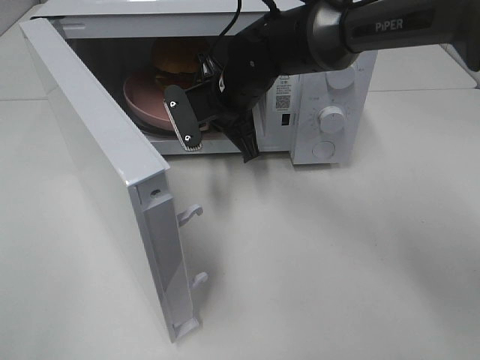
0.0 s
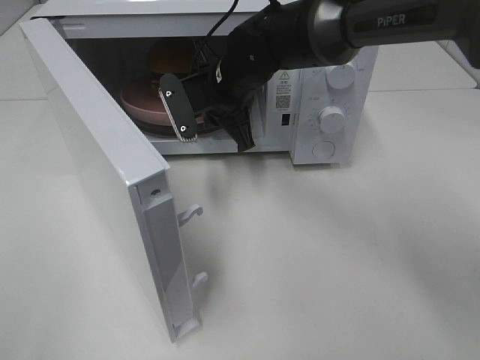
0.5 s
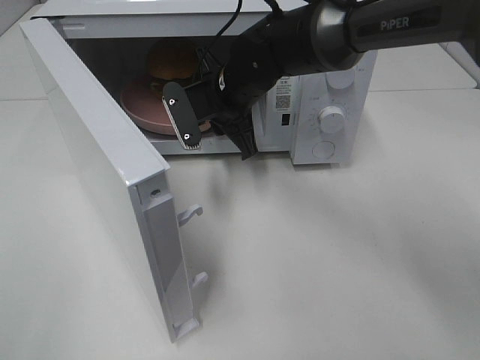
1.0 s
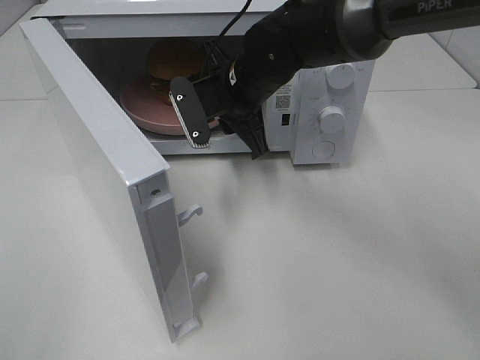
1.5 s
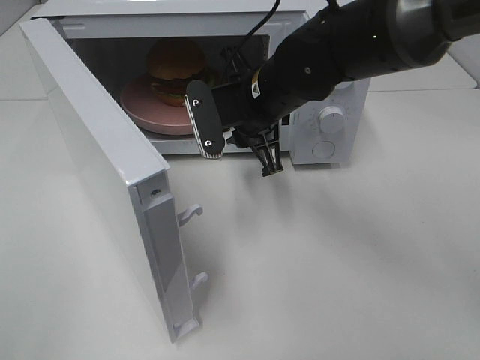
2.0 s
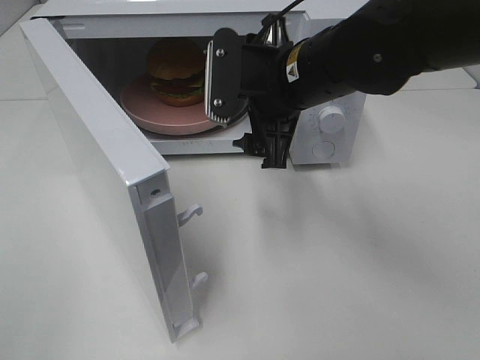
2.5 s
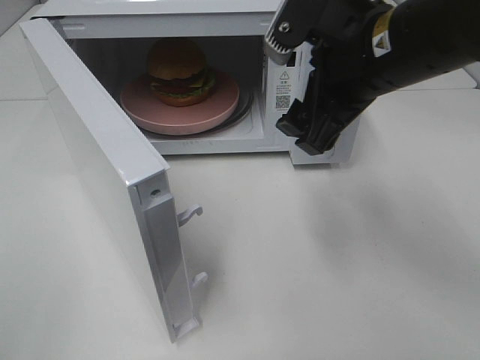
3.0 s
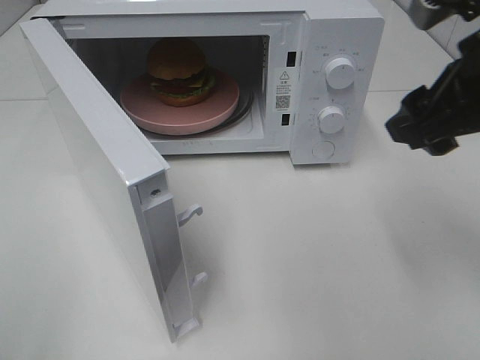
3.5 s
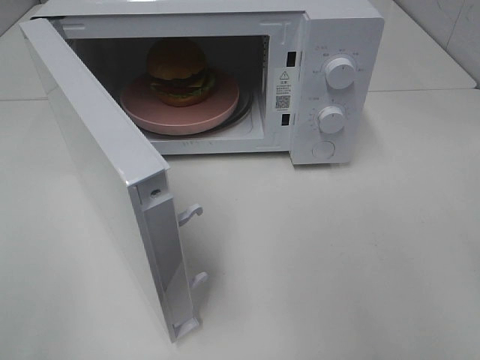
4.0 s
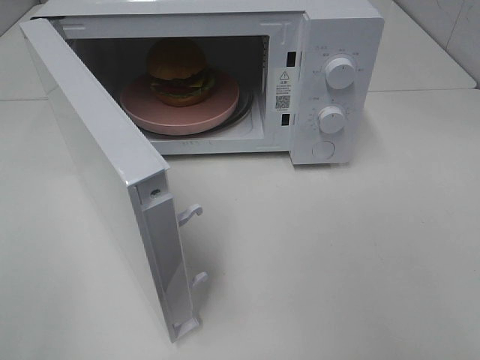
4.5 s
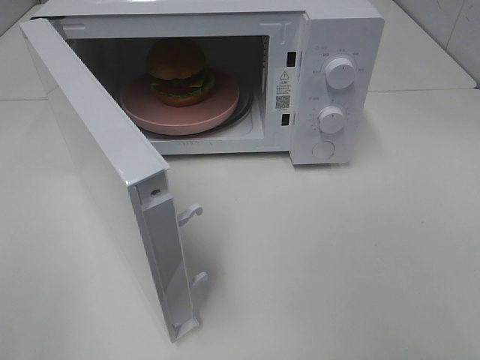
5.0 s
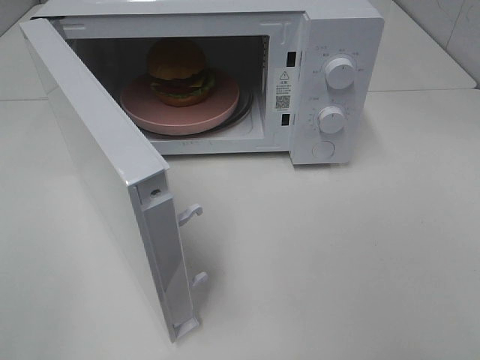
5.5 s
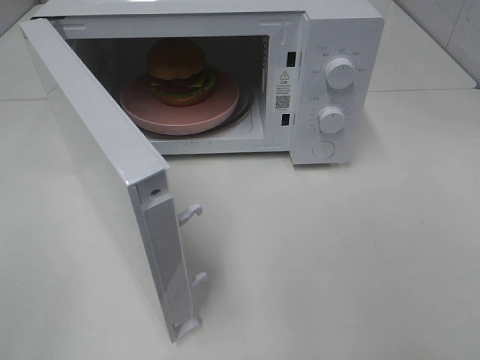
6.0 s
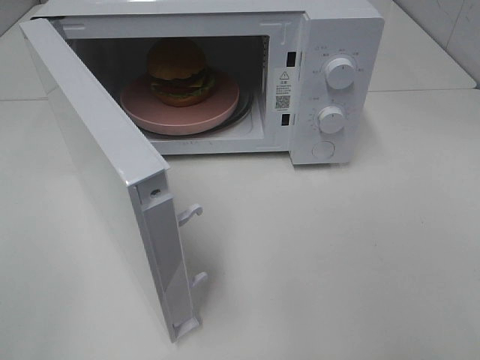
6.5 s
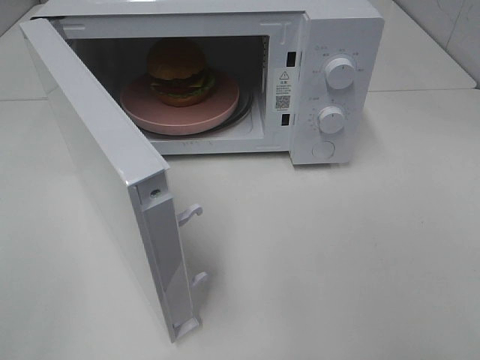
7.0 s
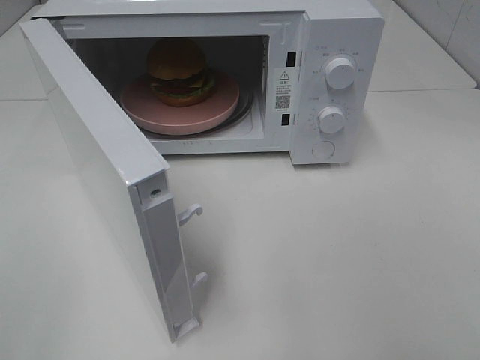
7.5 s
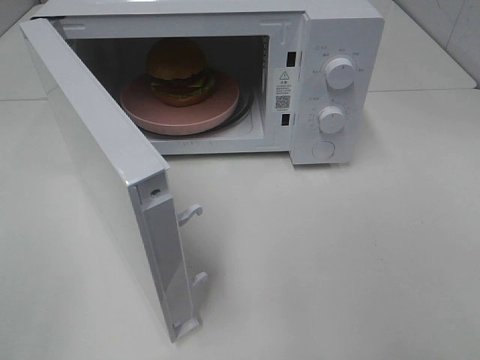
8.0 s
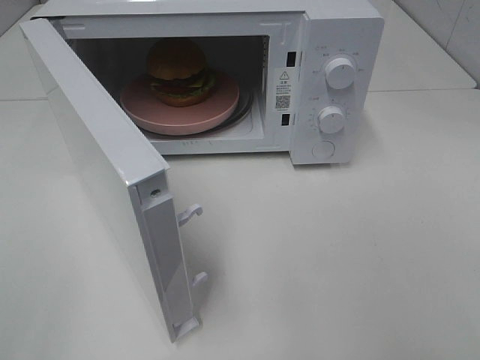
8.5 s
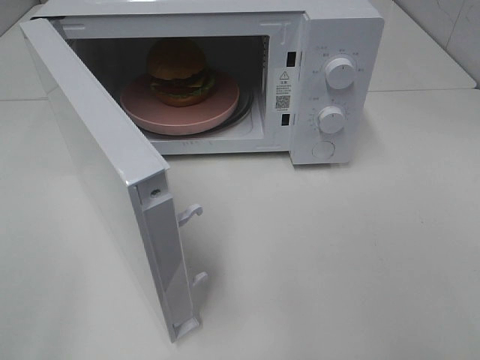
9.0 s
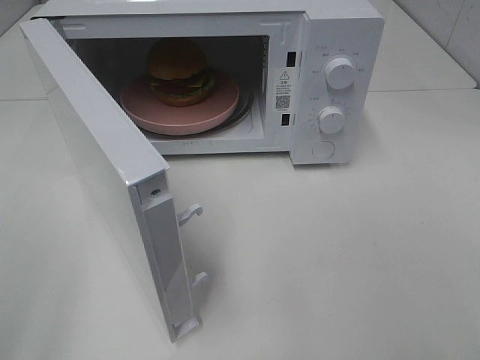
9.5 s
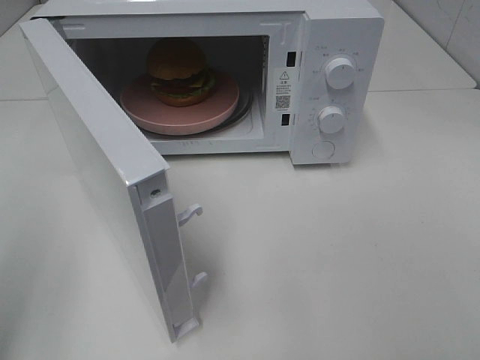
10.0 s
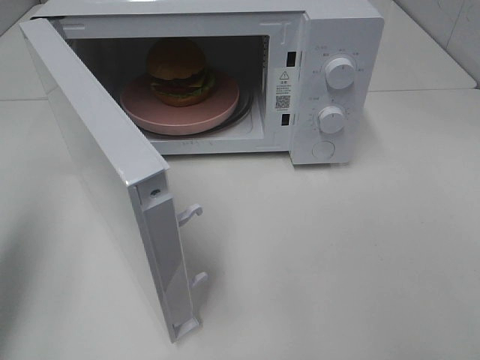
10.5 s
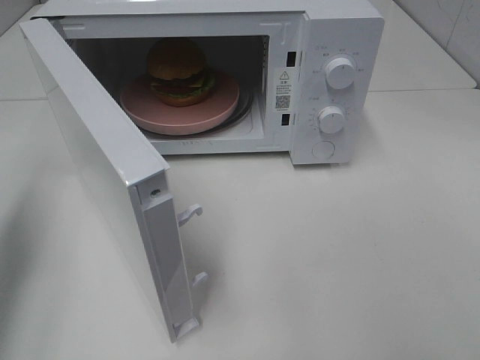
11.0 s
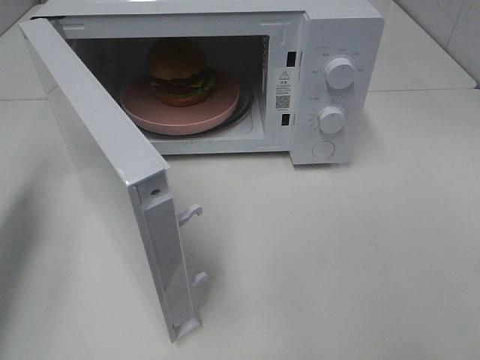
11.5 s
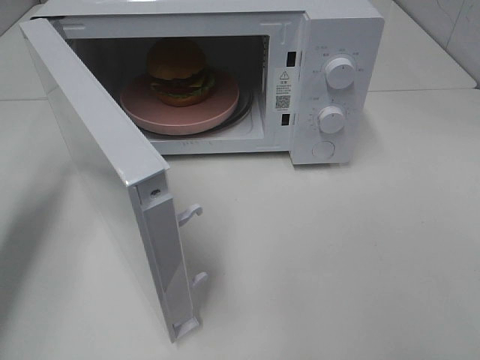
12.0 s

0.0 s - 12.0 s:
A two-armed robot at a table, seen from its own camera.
Task of the whole recording: Heat the burger.
0.0 s - 2.0 s: The right gripper travels backward by roughly 5 cm, and opens.
2.0 s - 4.0 s: The right gripper moves to the right, backward and upward, approximately 35 cm, and opens.
6.0 s - 8.0 s: Neither gripper changes place.
8.0 s - 10.0 s: The left gripper heads forward, covering approximately 10 cm.
10.0 s - 12.0 s: The left gripper moves forward and downward, about 20 cm, and closes its fingers.

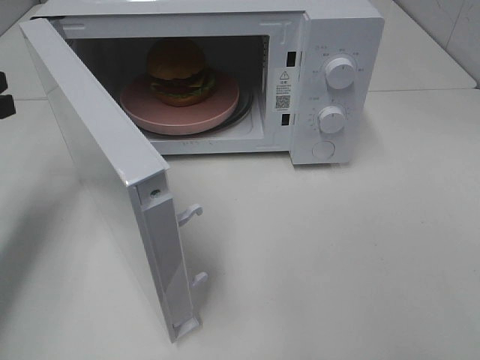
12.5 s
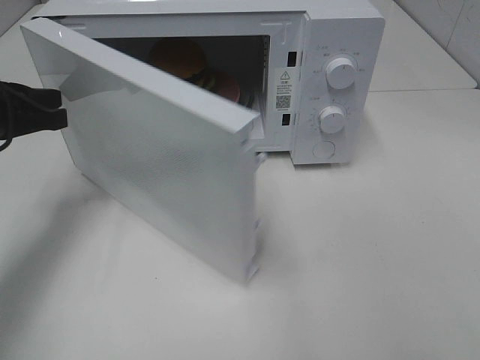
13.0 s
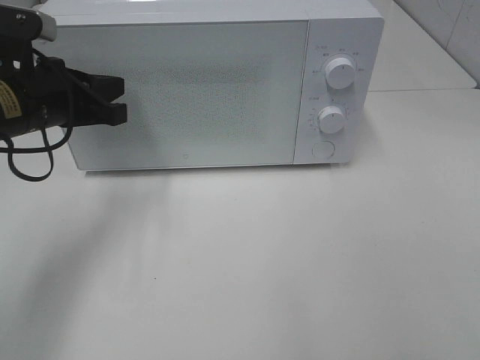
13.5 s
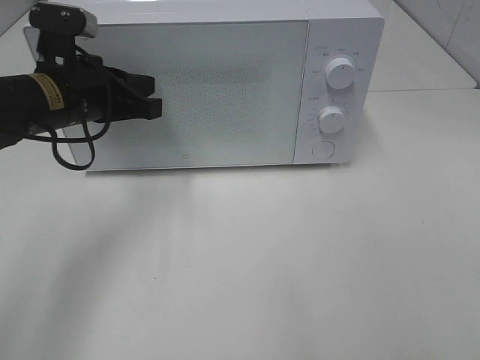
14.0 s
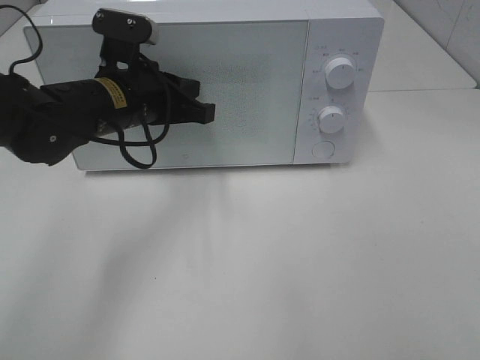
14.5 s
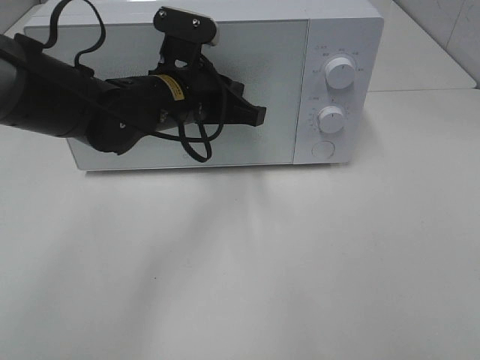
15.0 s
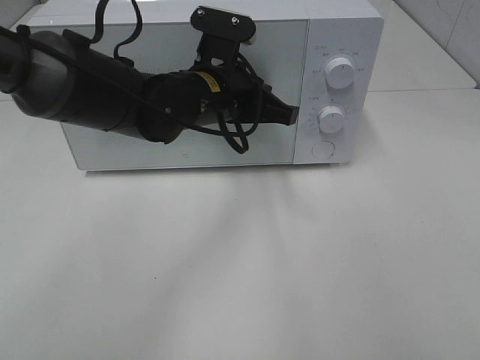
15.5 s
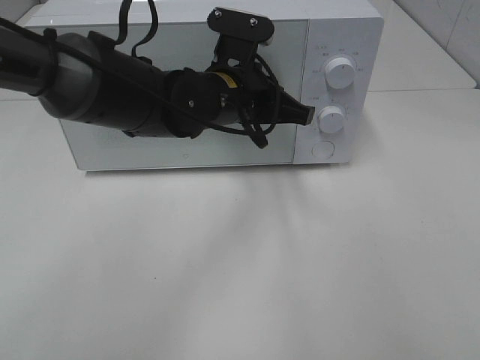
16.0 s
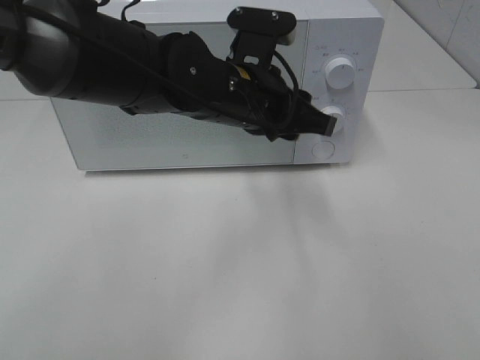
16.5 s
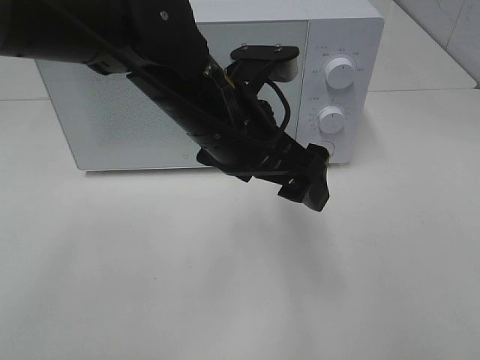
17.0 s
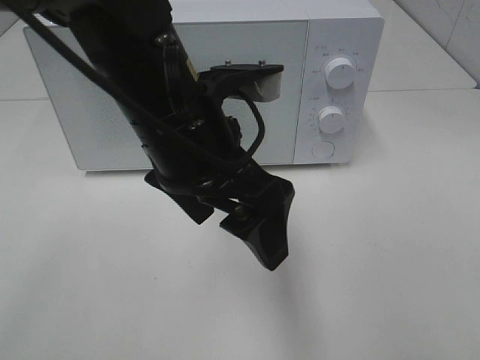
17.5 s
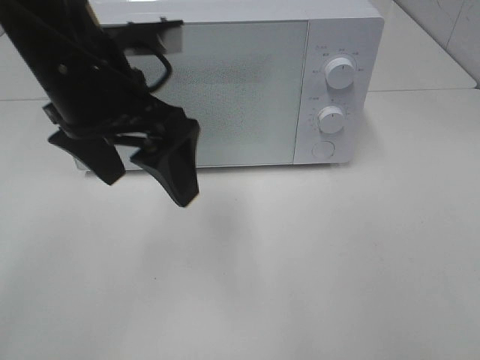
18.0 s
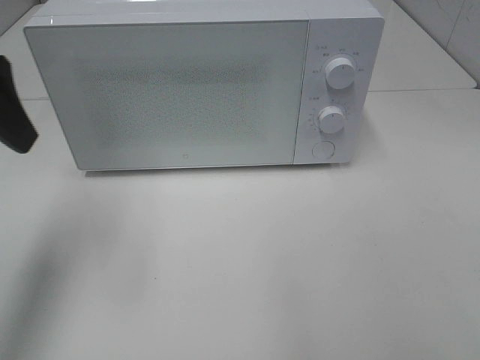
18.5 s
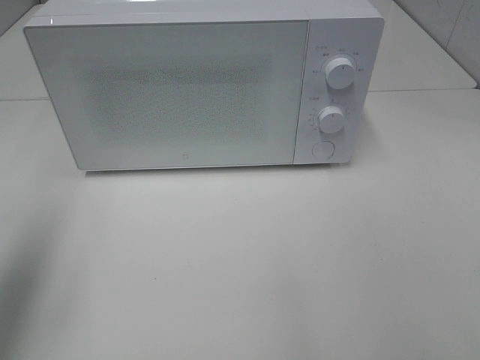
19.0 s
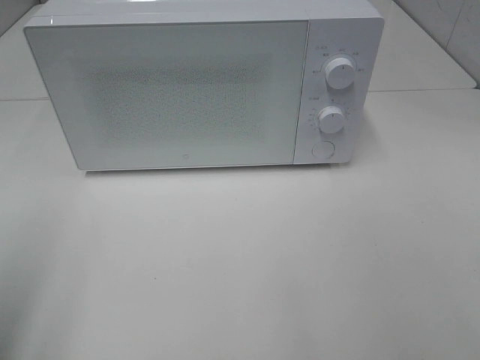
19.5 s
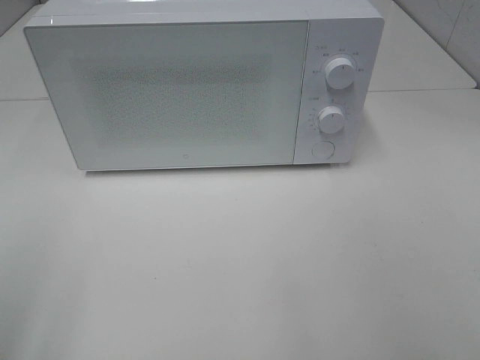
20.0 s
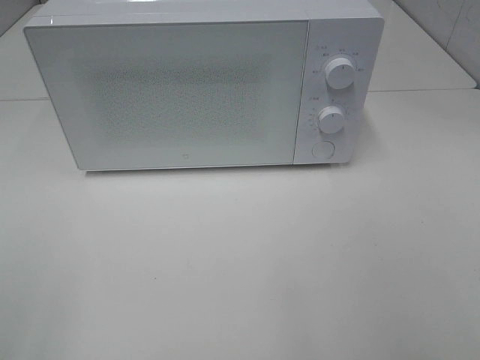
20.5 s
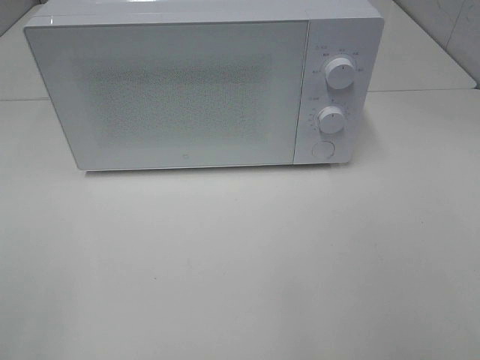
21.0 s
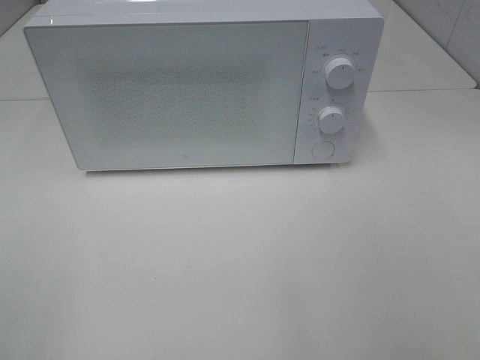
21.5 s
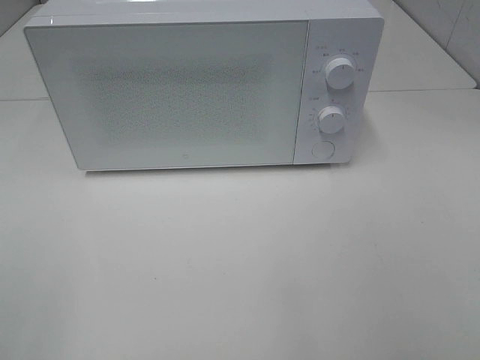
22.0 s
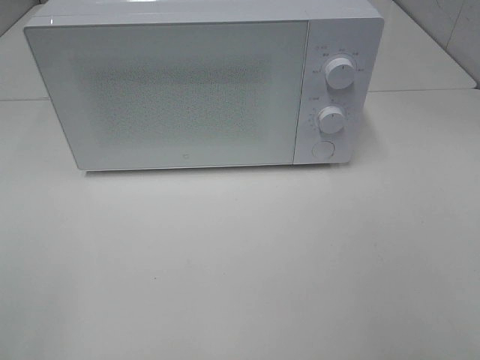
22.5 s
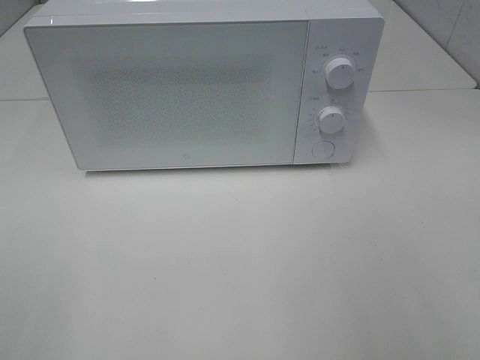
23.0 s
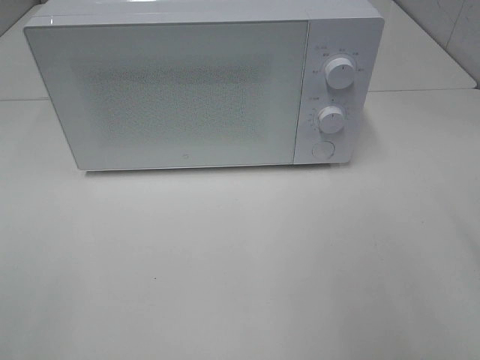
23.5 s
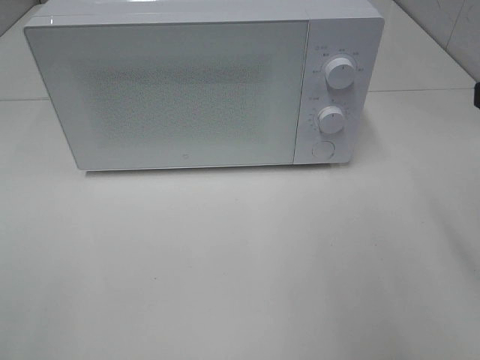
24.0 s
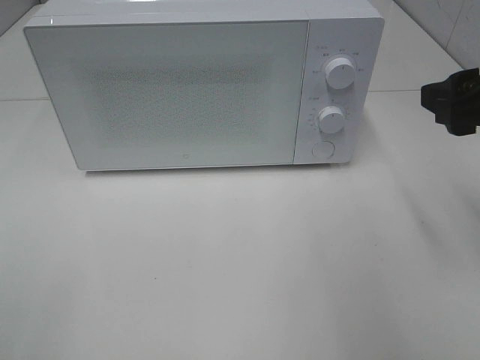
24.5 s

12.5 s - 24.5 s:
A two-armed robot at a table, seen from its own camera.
Task of the whole recording: Heat the burger.
Step, 12.5 s - 14.5 s: Left hand: close the microwave door.
12.5 s - 14.5 s: The left gripper shifts about 20 cm to the right.
14.5 s - 16.5 s: The left gripper moves to the right, some 10 cm, and opens up.
16.5 s - 18.5 s: The left gripper travels to the left and upward by roughly 30 cm, and opens its fingers.
18.5 s - 20.5 s: The left gripper moves backward, about 25 cm.
22.5 s - 24.5 s: The right gripper heads forward, covering about 20 cm.

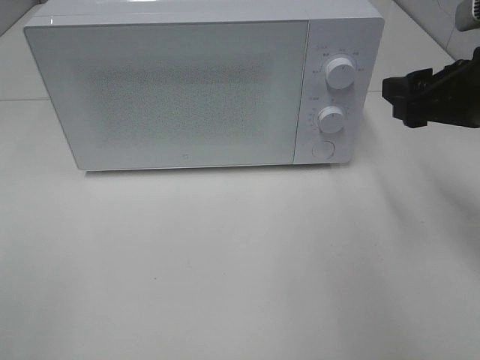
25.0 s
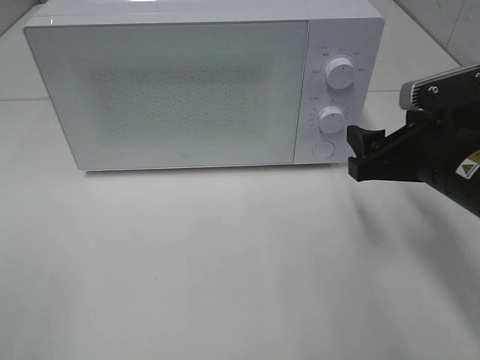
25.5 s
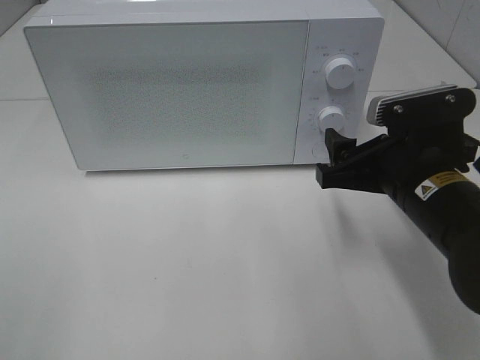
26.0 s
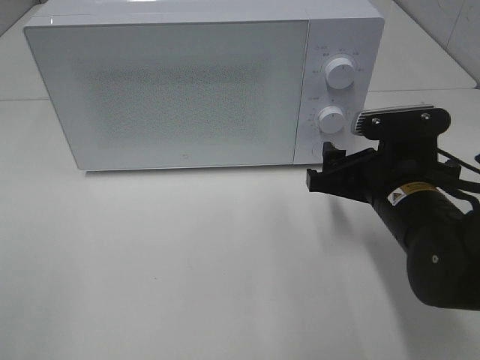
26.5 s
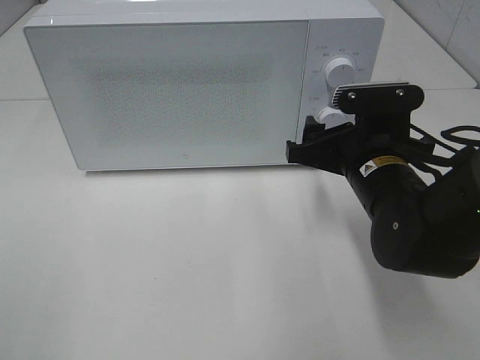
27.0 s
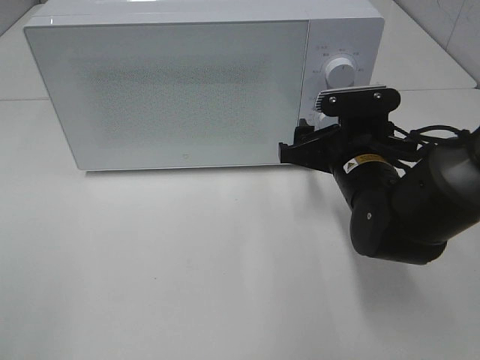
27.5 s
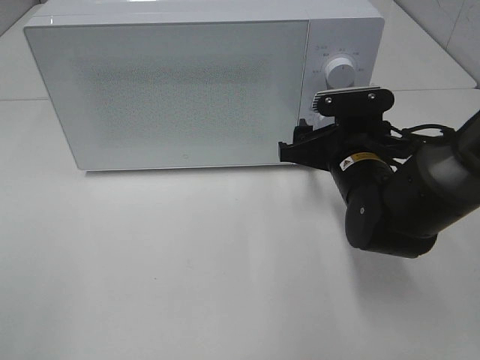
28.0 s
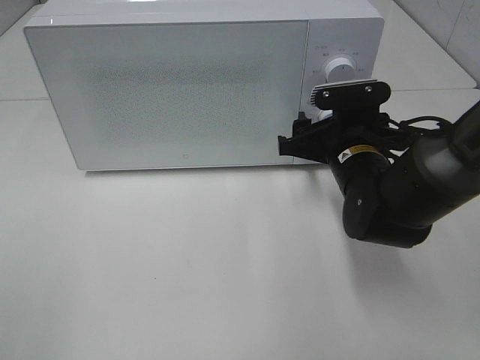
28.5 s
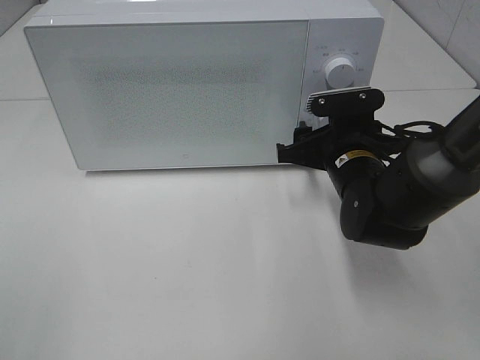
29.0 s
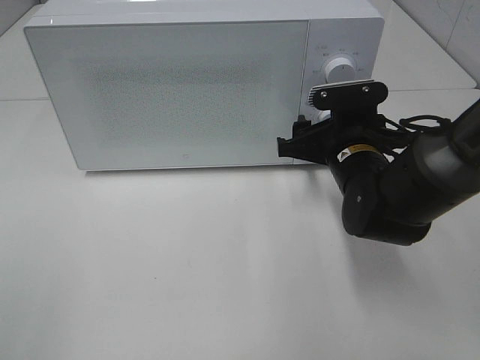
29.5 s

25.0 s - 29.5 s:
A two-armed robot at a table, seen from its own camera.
Task of the whole recording: Heat the burger.
25.0 s - 27.0 s: The right gripper travels to the left and downward by approximately 15 cm.
27.0 s - 29.5 s: The right gripper shifts by about 5 cm.
